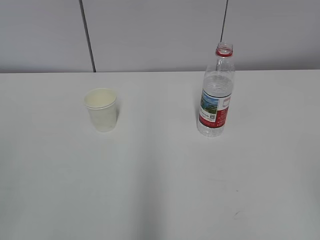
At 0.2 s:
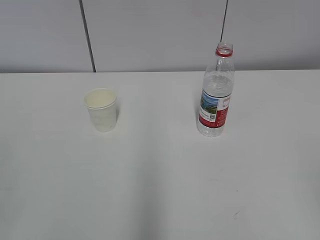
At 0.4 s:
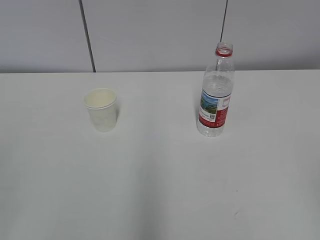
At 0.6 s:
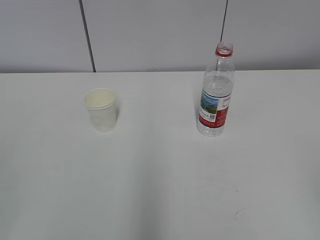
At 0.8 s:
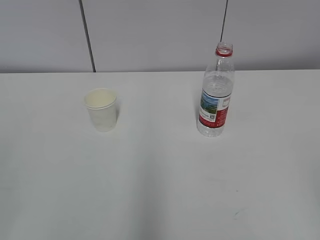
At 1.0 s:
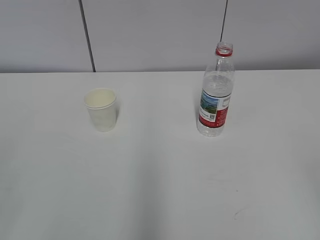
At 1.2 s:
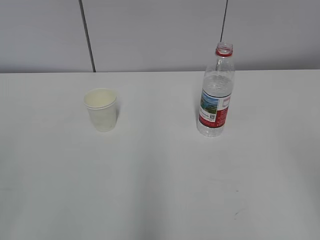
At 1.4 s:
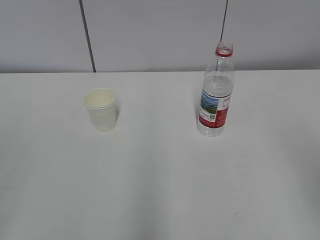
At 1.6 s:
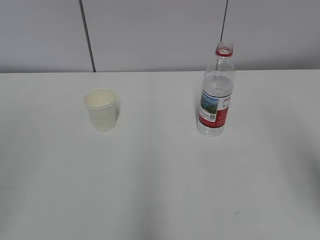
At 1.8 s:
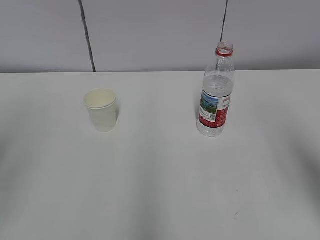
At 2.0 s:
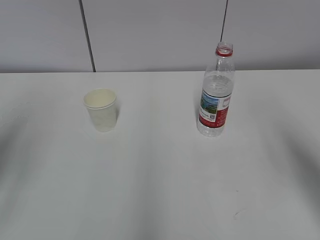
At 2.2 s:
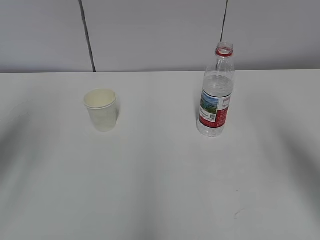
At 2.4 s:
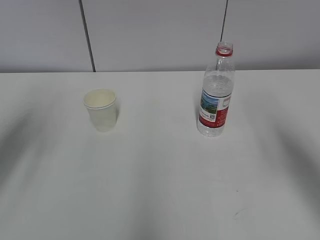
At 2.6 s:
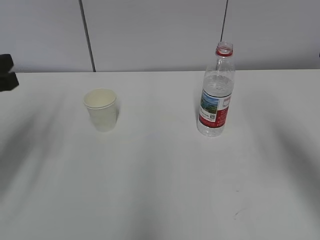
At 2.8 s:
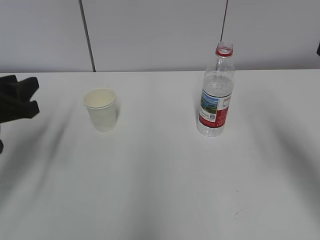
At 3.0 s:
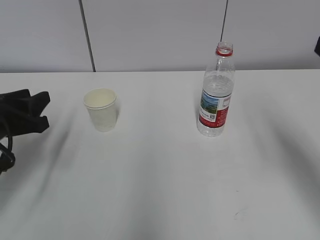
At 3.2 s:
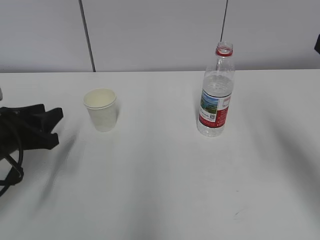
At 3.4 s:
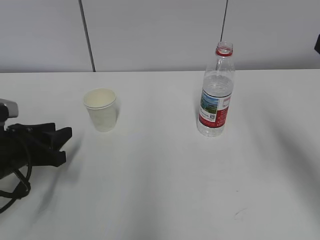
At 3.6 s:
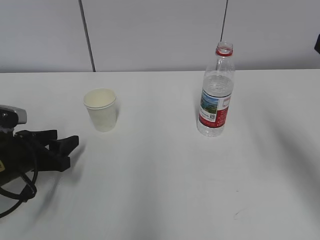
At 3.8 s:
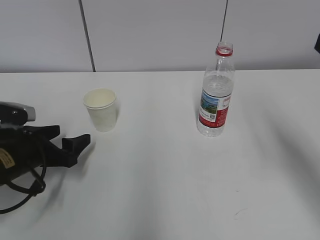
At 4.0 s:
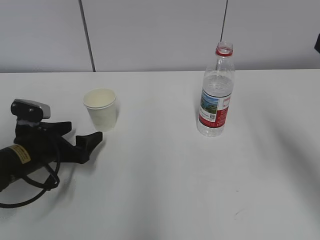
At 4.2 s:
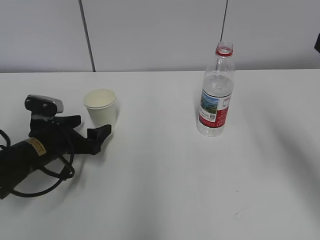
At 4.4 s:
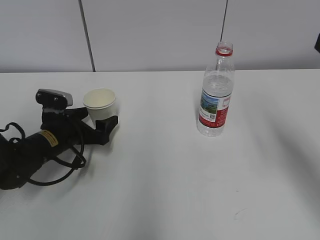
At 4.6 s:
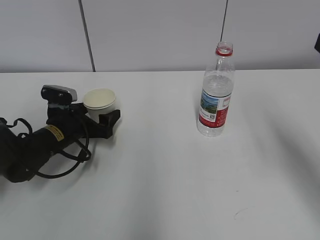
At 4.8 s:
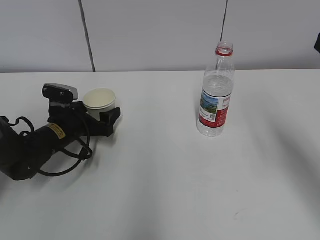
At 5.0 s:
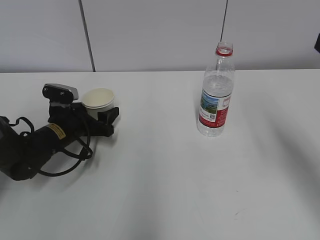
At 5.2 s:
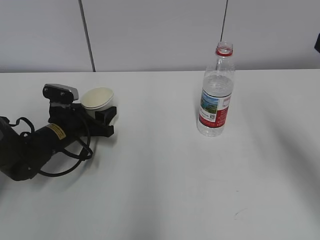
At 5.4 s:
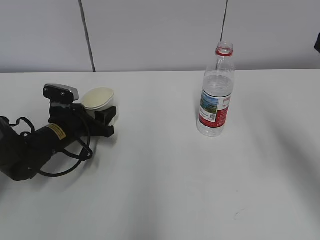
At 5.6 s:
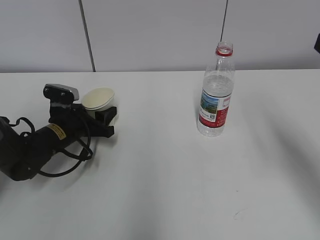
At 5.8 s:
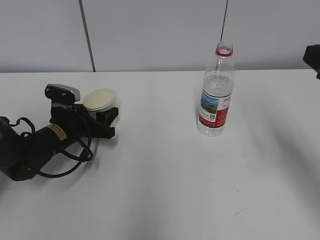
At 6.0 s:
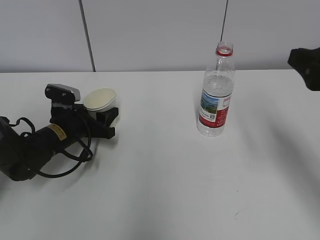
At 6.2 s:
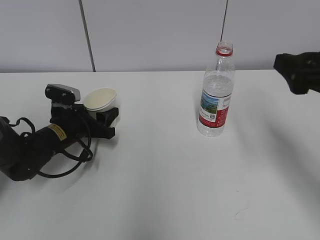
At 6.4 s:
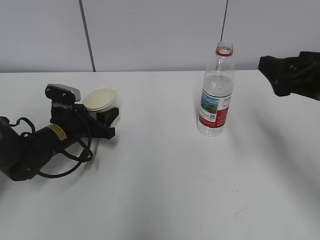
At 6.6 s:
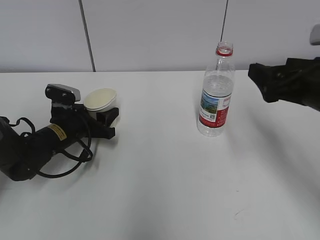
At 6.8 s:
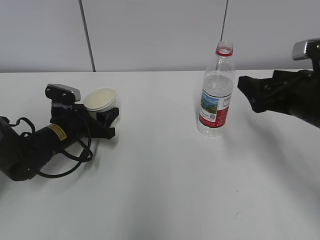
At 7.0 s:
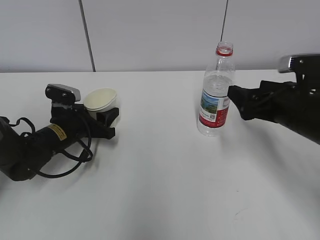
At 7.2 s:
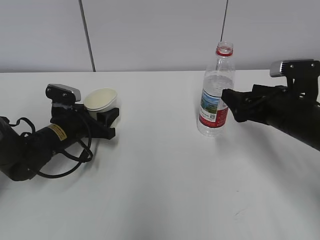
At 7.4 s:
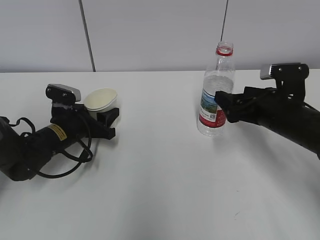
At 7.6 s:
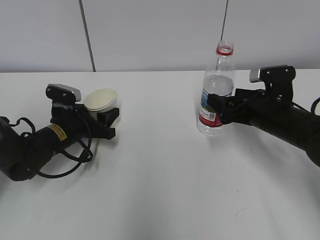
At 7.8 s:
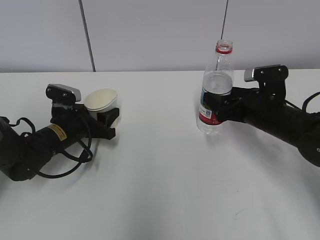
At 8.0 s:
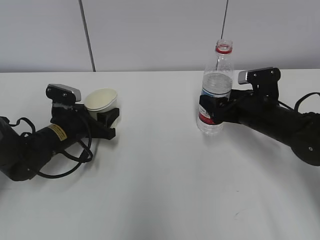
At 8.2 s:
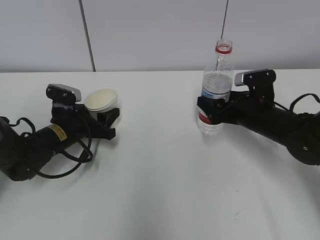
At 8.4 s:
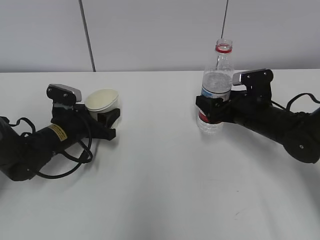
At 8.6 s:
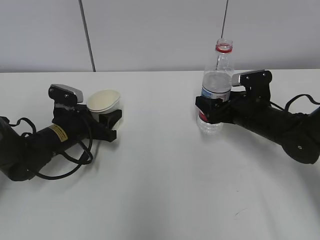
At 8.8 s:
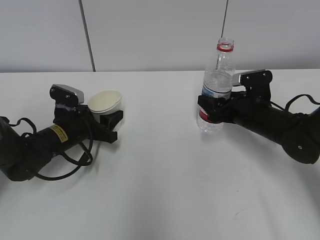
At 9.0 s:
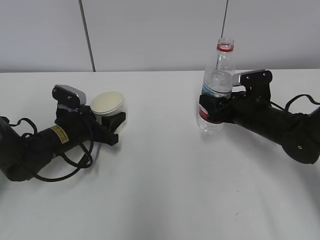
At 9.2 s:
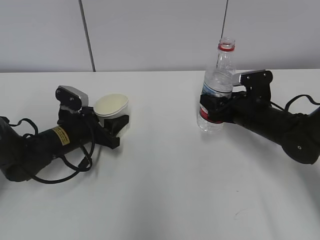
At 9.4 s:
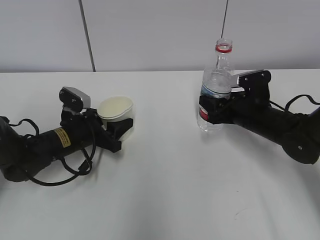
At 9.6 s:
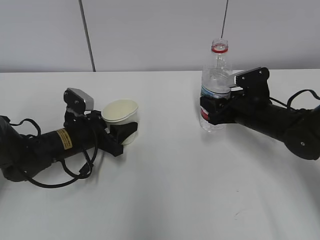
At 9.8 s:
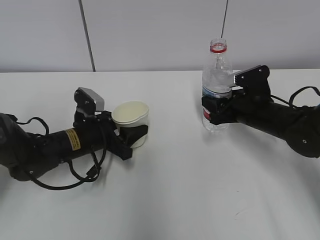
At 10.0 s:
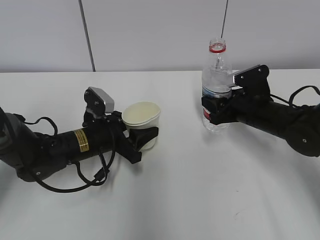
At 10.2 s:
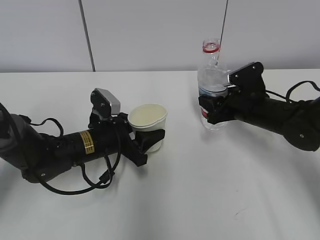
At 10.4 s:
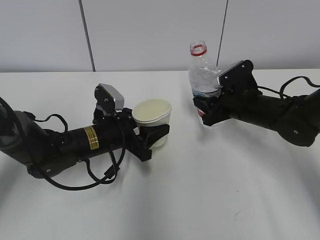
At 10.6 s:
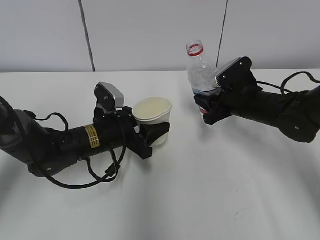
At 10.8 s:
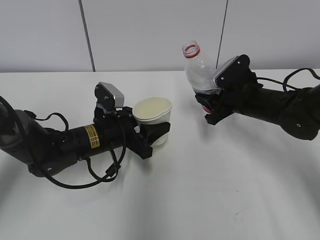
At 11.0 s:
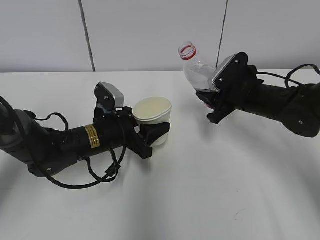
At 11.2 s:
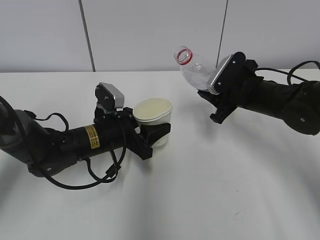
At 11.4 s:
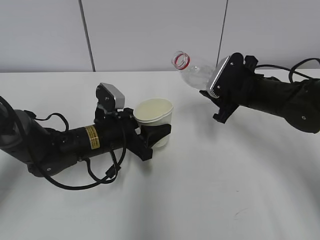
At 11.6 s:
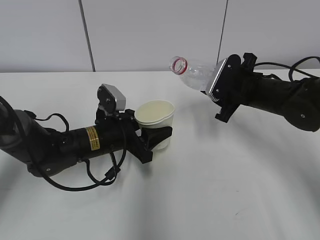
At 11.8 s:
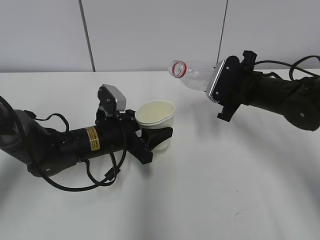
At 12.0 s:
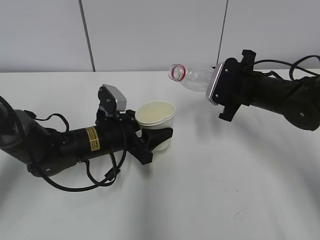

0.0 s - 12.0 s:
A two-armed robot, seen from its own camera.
Step, 0.0 s - 4.4 s: Grab the paper cup with the left hand.
Step, 4.6 s - 7.6 s: Grab the water bottle with the right hand.
Step, 7.8 s - 11.2 s: Lift the paper cup with the left hand.
1.6 s - 3.0 s: The left gripper travels forward and downward by some 30 cm.
3.0 s - 4.4 s: The left gripper is displaced downward, forward and to the right by approximately 15 cm, and opens up.
4.4 s - 6.0 s: The right gripper opens; the left gripper closes up.
6.0 s - 7.6 s: The right gripper moves downward and forward, approximately 20 cm, and opens up.
7.6 s - 9.0 s: The right gripper shifts by some 5 cm, and closes its fingers.
9.0 s - 10.4 s: The left gripper travels to the right by some 5 cm.

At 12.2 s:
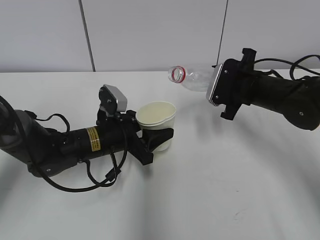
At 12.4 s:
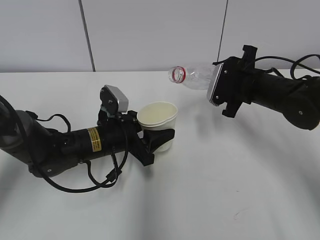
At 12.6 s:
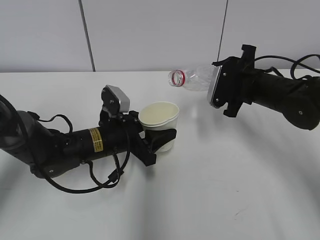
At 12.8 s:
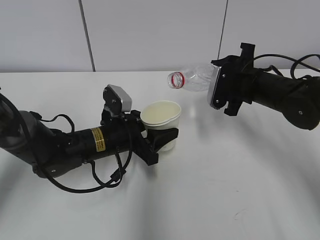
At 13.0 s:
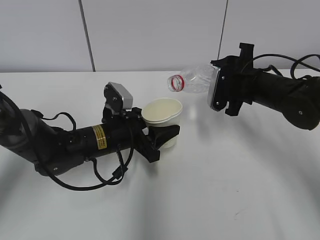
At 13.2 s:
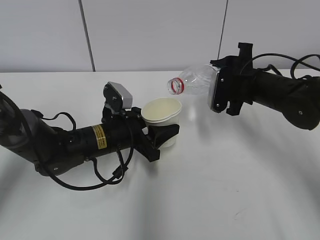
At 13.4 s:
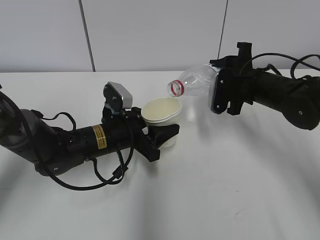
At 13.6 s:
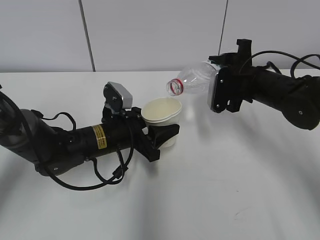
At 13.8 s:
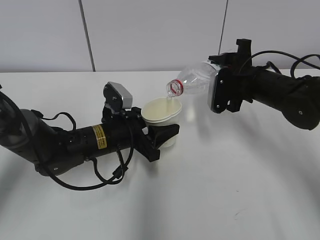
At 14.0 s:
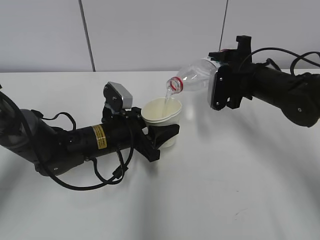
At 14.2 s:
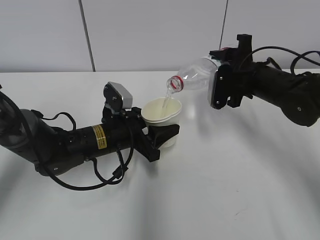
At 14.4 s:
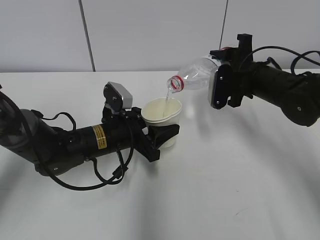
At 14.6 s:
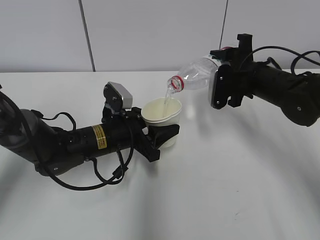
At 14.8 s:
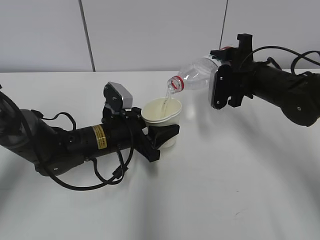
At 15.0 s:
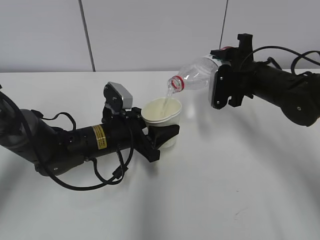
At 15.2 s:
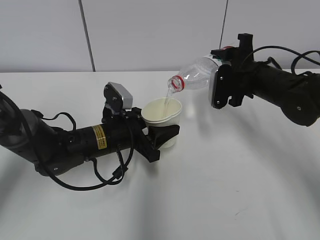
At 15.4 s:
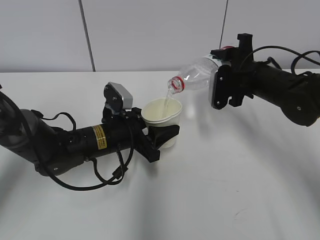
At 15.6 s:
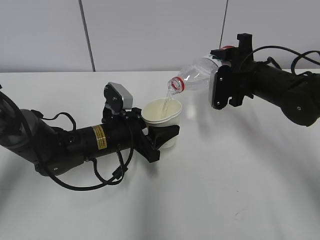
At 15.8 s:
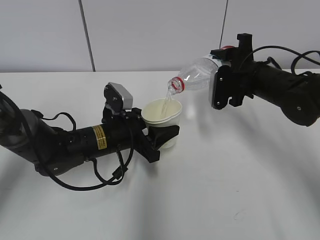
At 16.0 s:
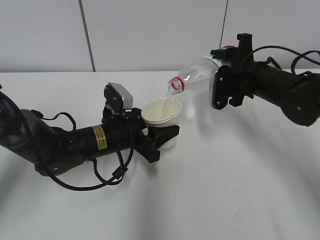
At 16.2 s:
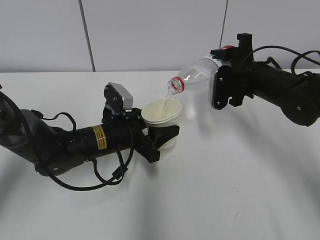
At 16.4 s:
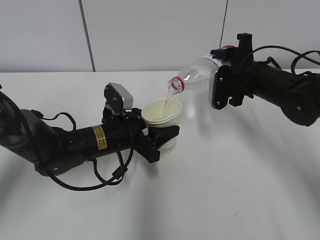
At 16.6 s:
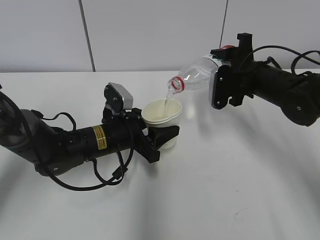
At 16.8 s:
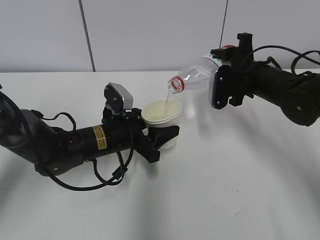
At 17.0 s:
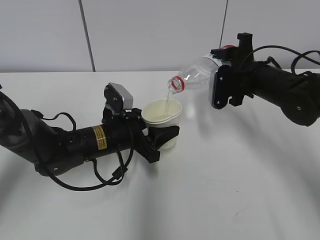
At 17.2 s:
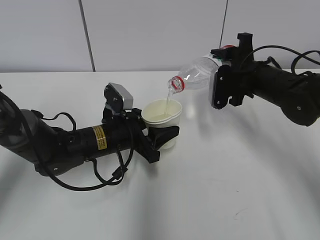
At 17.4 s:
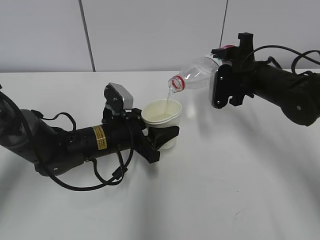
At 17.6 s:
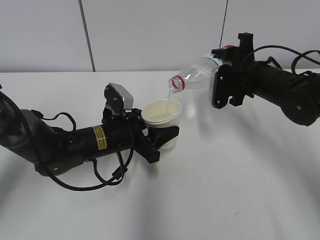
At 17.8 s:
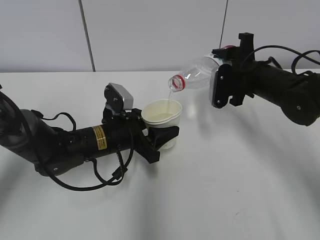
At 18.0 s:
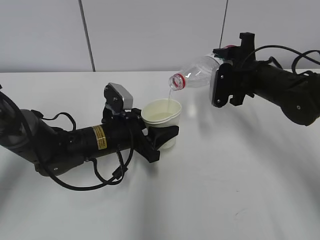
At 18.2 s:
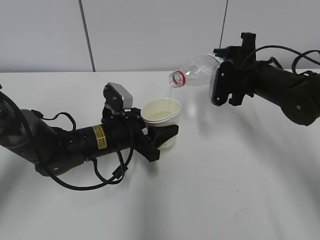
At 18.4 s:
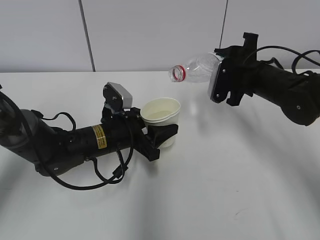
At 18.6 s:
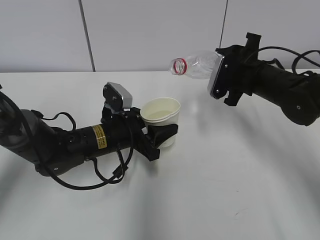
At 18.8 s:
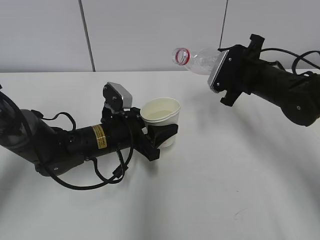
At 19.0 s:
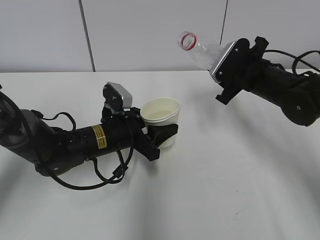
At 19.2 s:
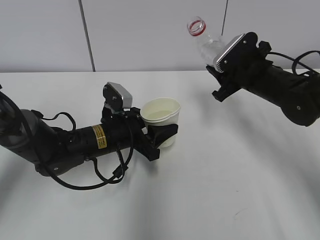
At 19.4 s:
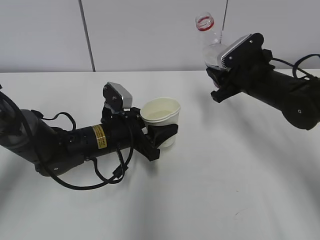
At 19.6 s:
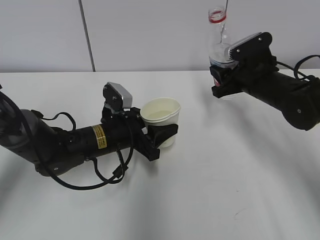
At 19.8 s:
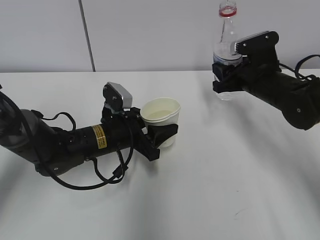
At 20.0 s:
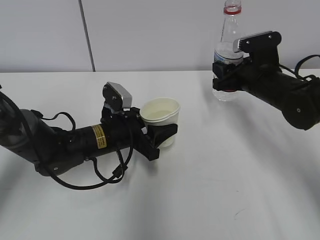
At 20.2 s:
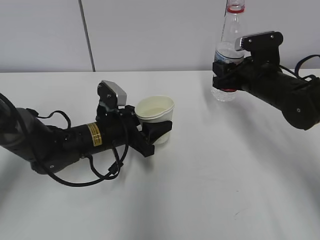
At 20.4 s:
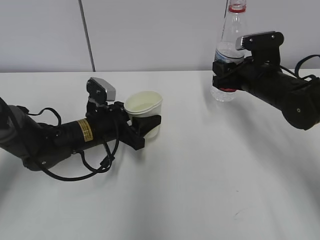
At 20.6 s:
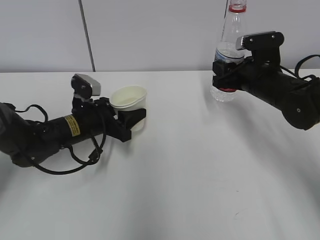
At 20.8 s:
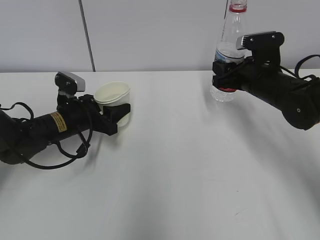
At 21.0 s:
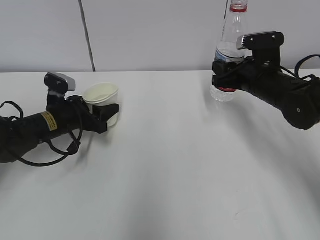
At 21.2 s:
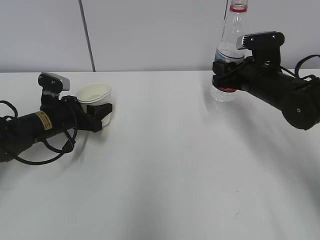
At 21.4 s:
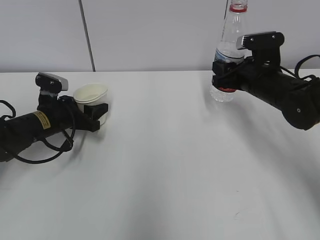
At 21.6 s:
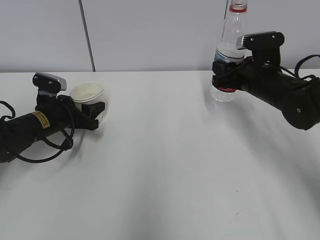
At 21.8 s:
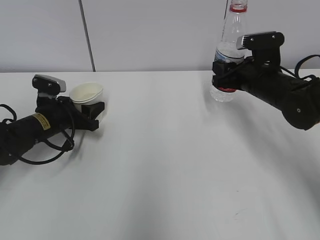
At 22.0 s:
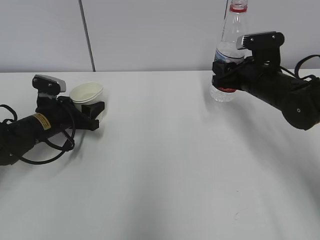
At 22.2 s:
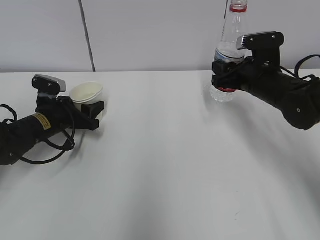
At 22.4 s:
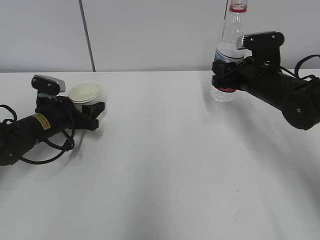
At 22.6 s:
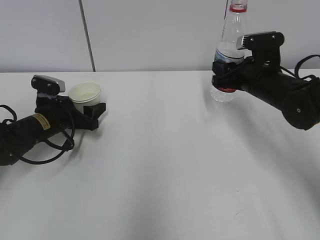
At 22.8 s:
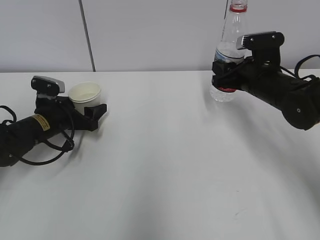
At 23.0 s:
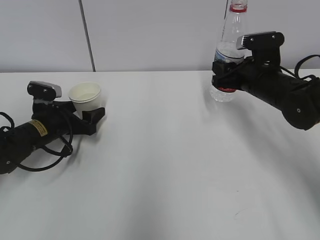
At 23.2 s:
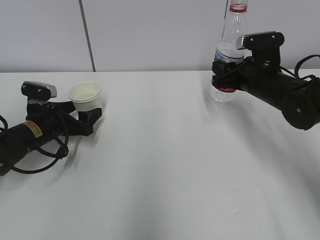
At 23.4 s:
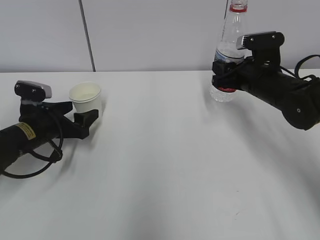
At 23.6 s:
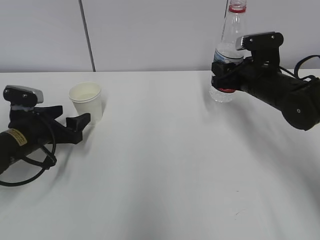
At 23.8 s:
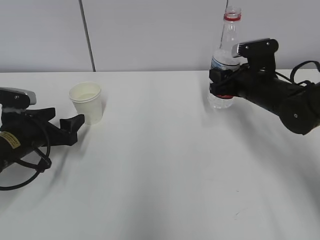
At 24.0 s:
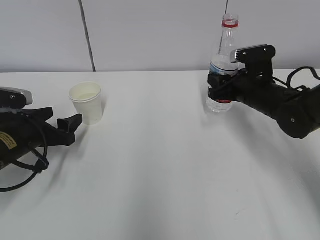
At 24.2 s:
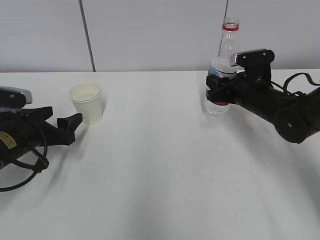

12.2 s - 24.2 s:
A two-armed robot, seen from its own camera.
Step, 12.2 s - 15.2 s: Fill water with the left hand.
Step, 12.2 s - 15.2 s: Pour water with the right hand.
Step, 17.2 s - 18.8 s: Place the paper cup with the left hand.
13.8 s - 18.2 s: Both grippers stay about where they are.
19.8 s - 21.2 s: The left gripper shifts some 15 cm to the left and forward.
21.2 s - 22.6 s: There are only small adjustments of the grippers.
22.6 s - 24.2 s: The left gripper goes approximately 10 cm backward.
